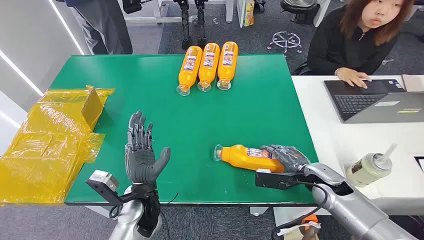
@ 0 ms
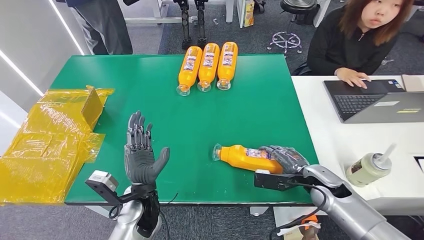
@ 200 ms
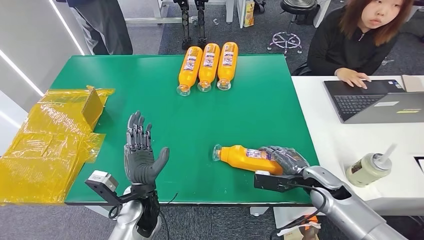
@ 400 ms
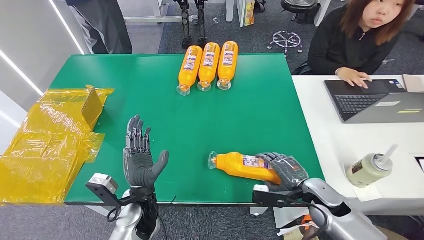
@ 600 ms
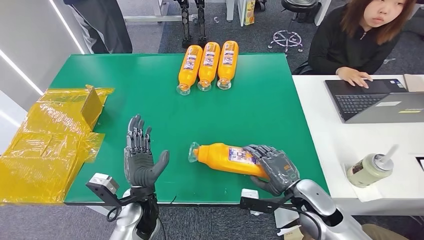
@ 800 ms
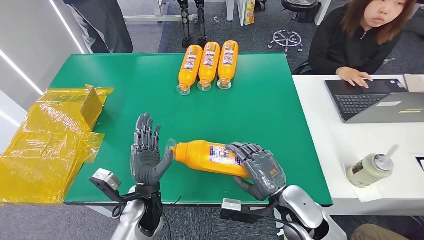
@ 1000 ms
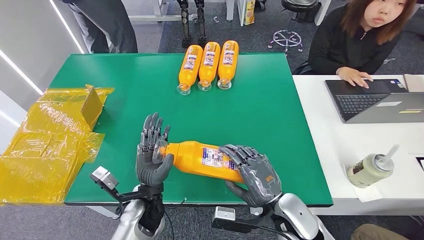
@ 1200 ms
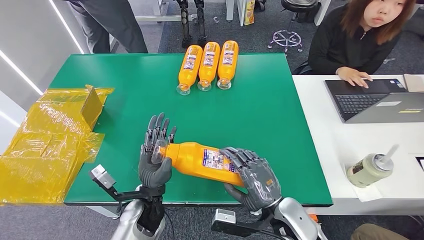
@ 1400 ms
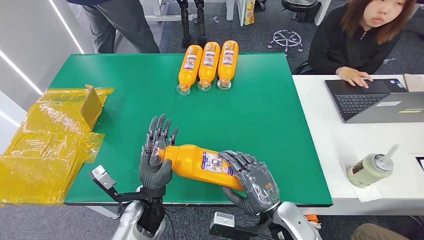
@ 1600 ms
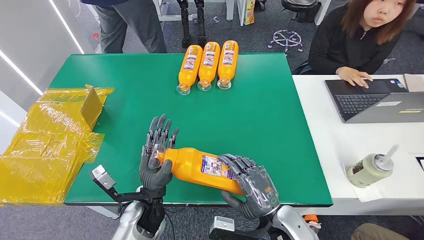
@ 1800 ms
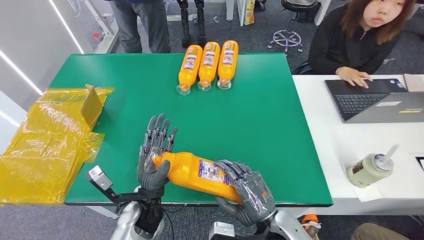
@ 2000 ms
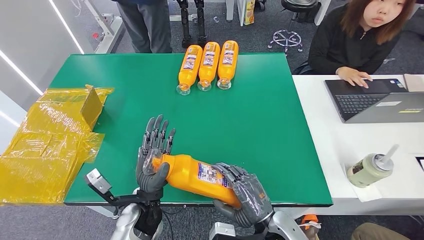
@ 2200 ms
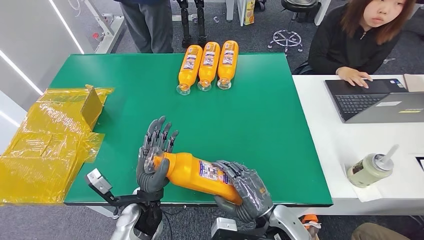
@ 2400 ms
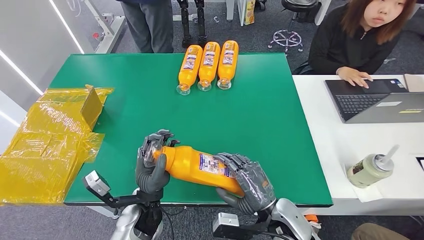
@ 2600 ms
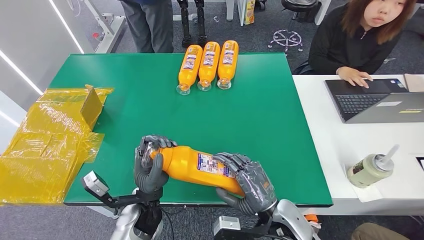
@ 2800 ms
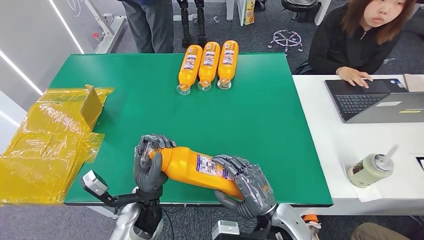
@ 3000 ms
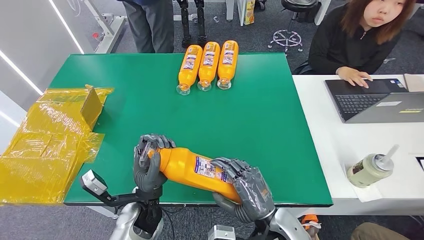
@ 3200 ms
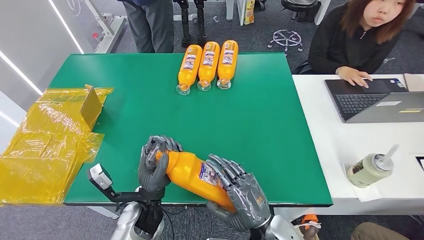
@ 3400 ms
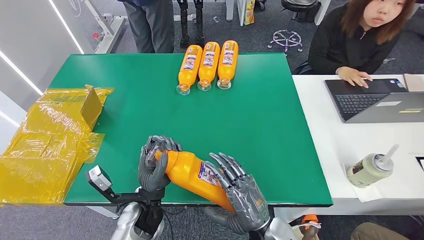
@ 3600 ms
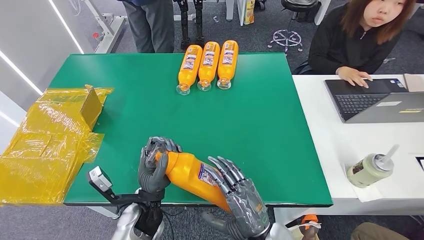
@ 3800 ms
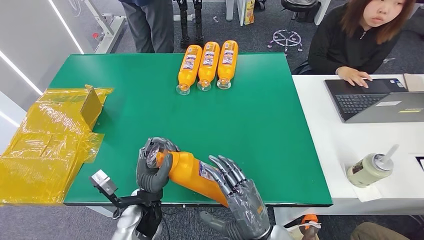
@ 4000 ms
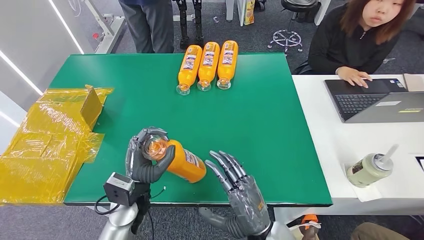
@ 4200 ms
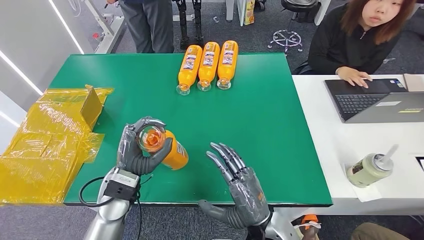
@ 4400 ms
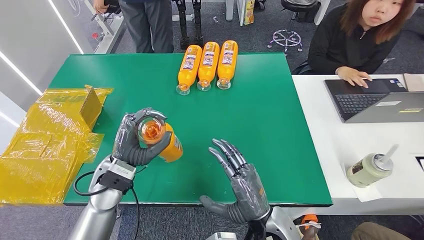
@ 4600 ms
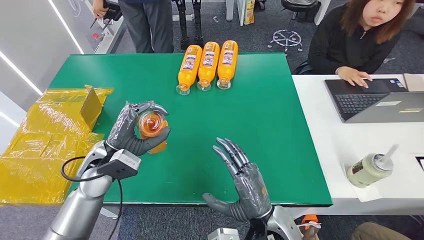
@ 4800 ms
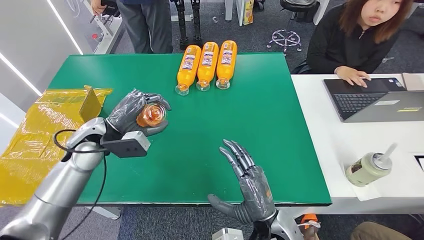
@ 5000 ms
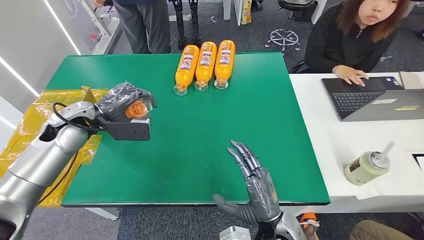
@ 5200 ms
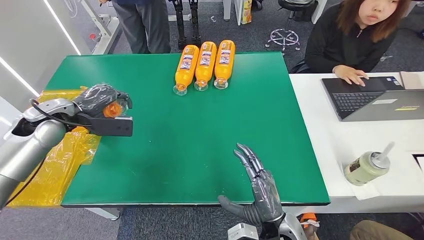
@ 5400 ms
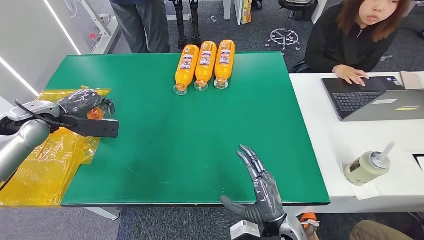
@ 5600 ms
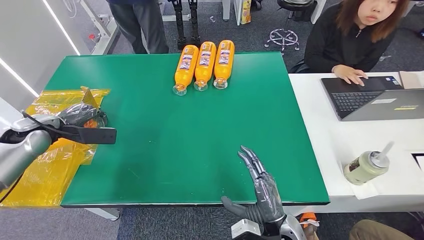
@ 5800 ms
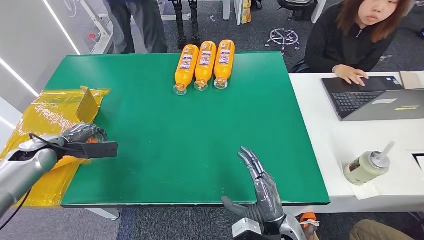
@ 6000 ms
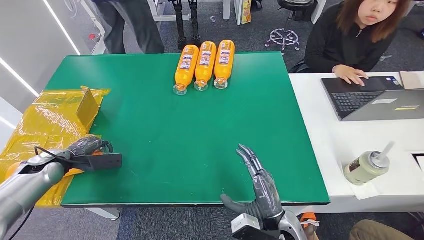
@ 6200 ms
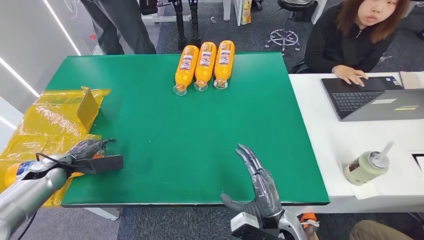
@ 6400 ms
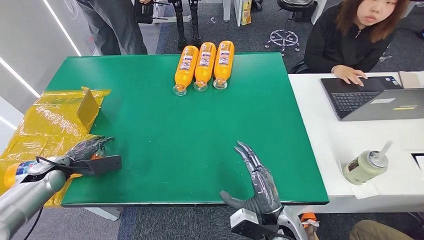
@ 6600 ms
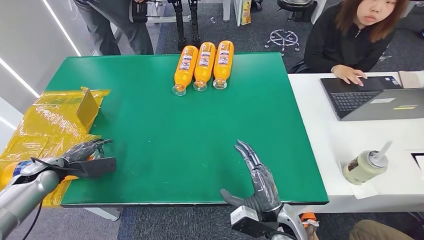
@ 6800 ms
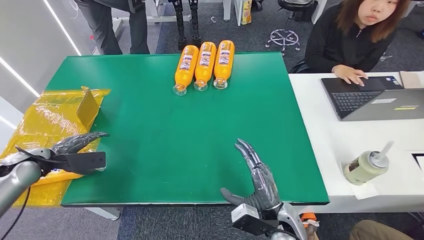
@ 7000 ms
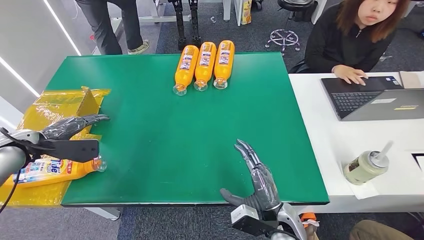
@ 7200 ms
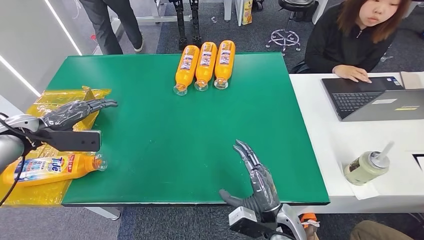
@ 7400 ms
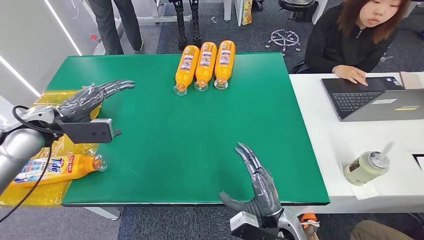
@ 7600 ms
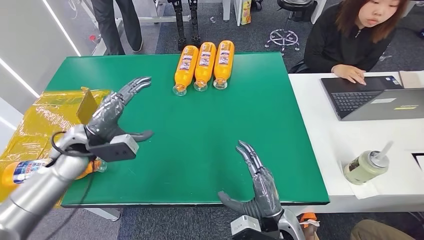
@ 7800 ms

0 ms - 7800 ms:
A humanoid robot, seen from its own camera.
Step, 0 ms - 2600 ms: Pick up the bottle from the table.
Step, 2800 ms - 7800 ms: Turn the bottle to the front side.
1600 ms - 3200 ms: There are only small adjustments of the hands.
3200 ms - 4600 ms: The left hand travels to the left, forward and upward by about 15 cm.
6200 ms - 7800 ms: The left hand travels to the right and upward by some 20 cm.
